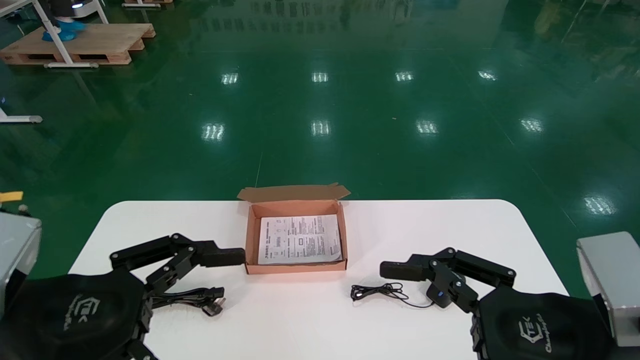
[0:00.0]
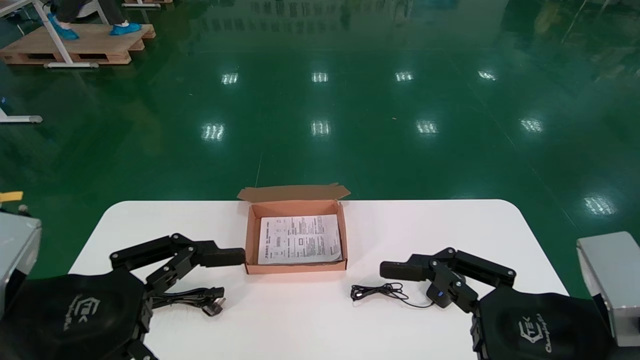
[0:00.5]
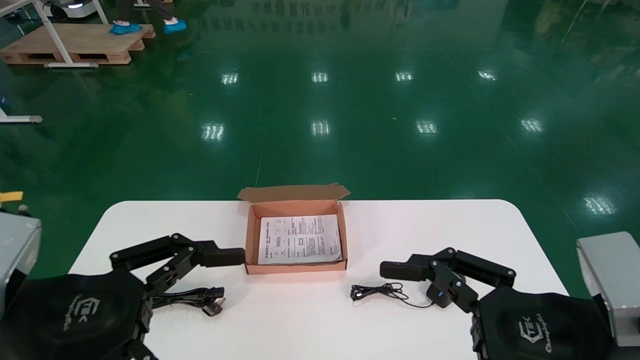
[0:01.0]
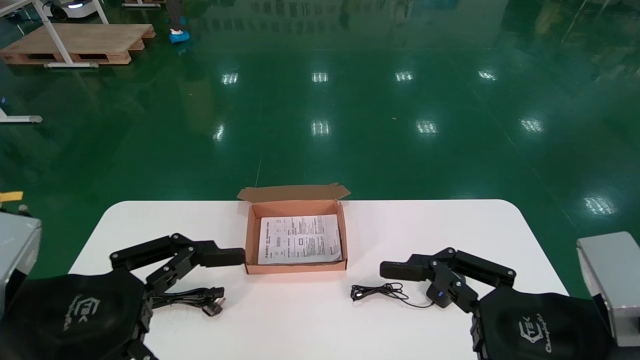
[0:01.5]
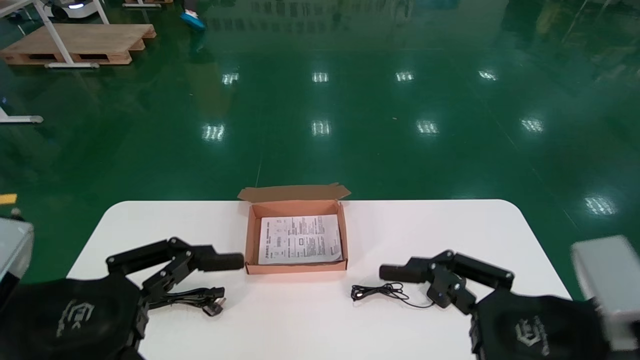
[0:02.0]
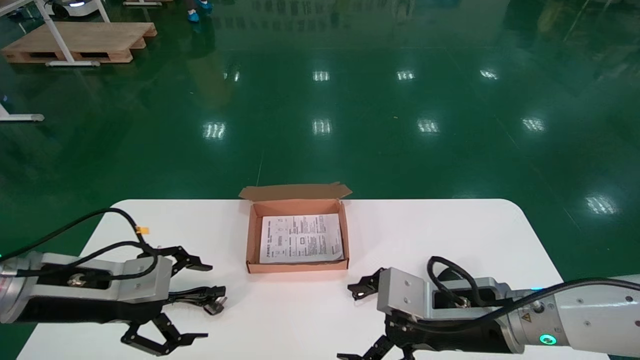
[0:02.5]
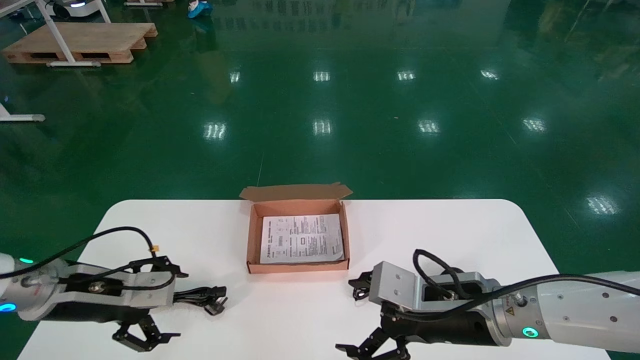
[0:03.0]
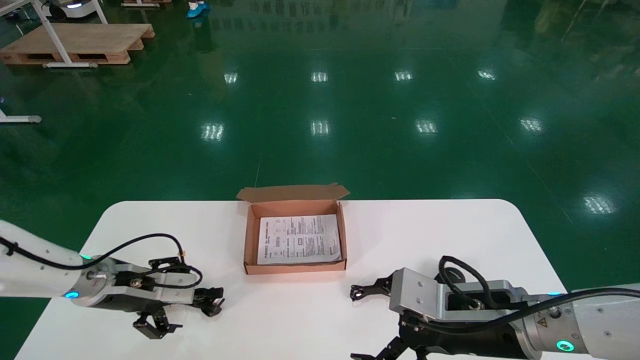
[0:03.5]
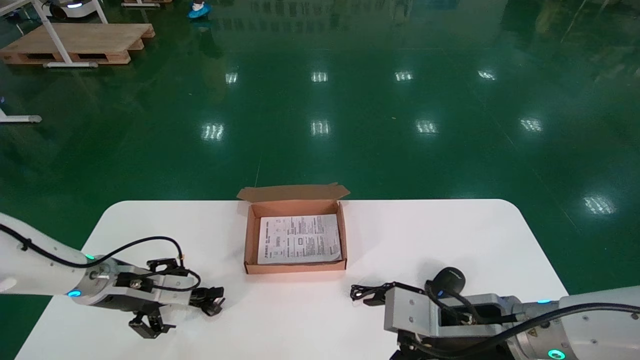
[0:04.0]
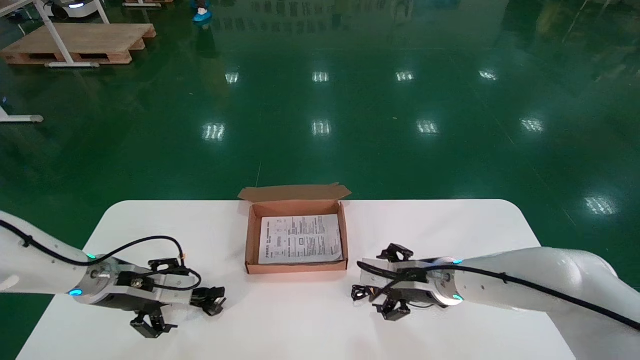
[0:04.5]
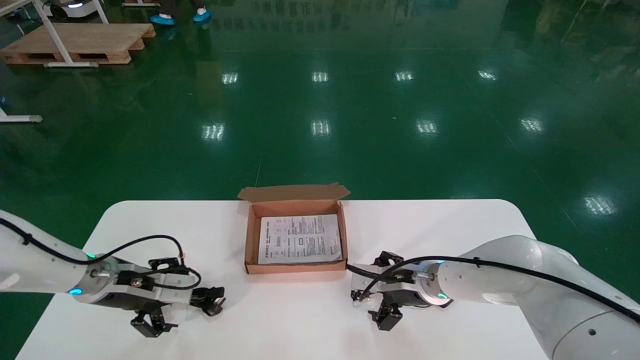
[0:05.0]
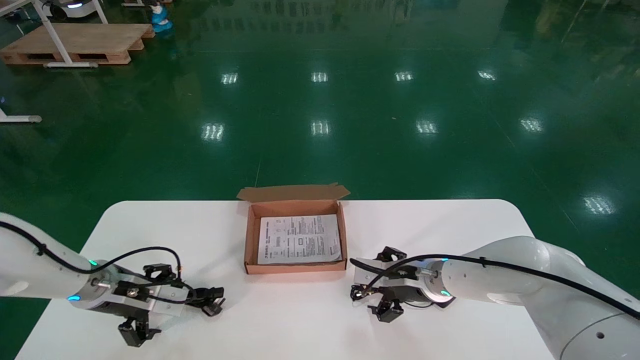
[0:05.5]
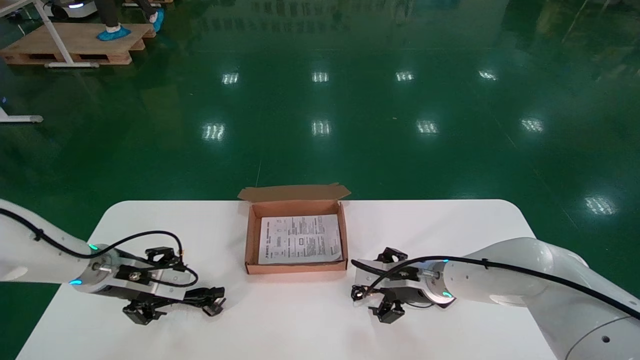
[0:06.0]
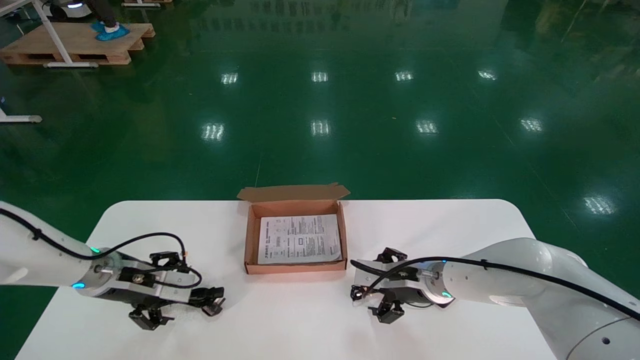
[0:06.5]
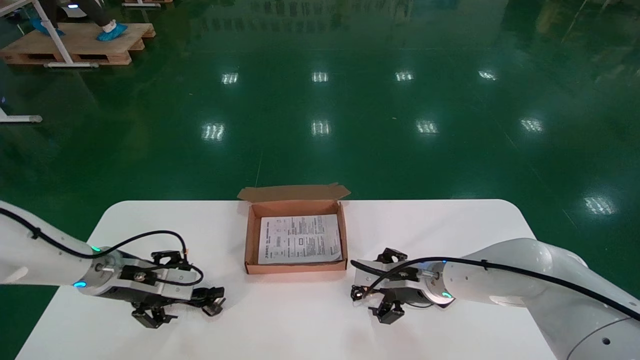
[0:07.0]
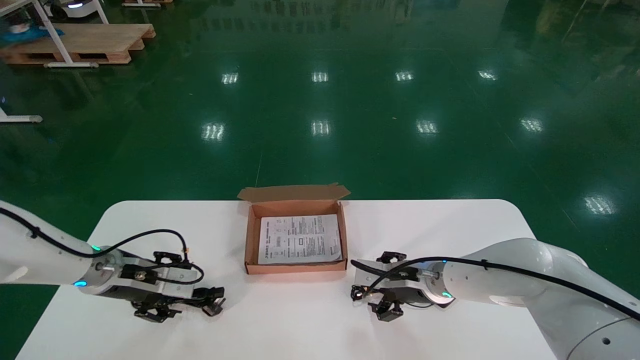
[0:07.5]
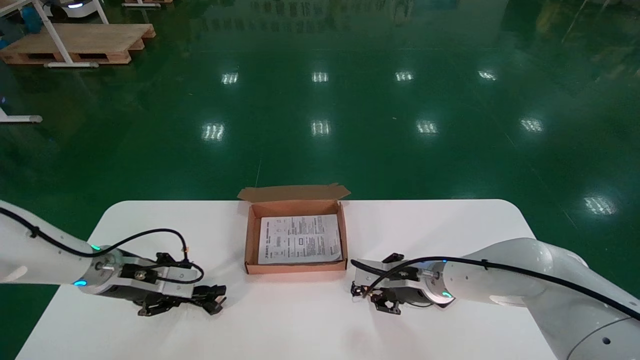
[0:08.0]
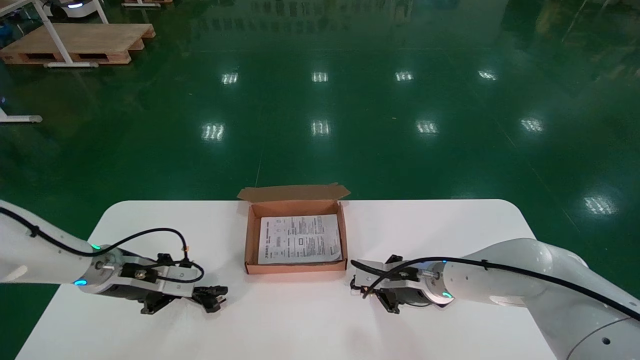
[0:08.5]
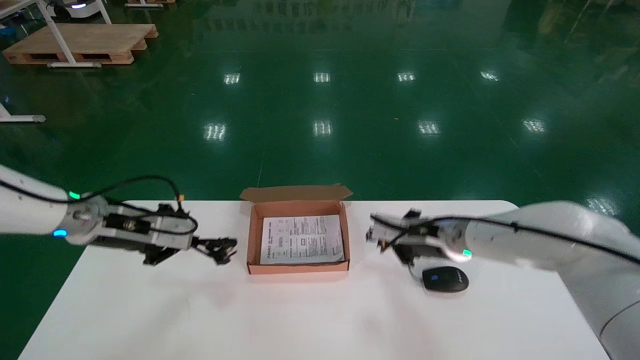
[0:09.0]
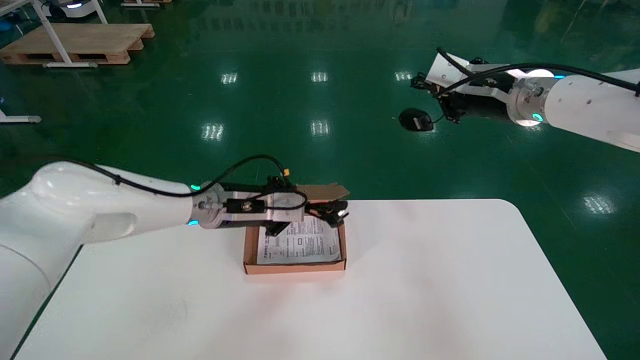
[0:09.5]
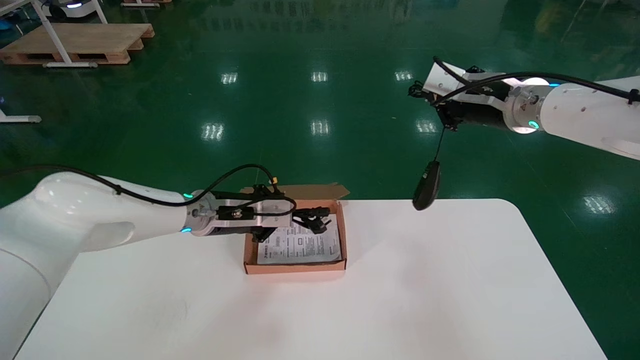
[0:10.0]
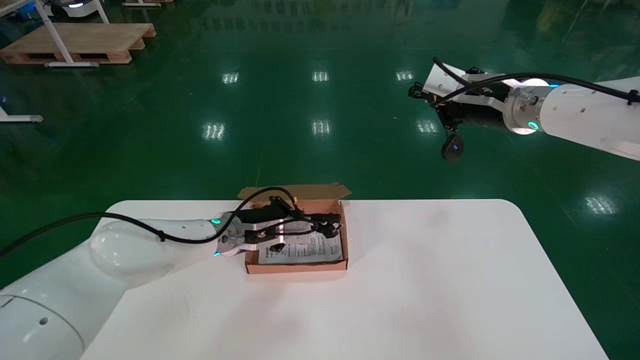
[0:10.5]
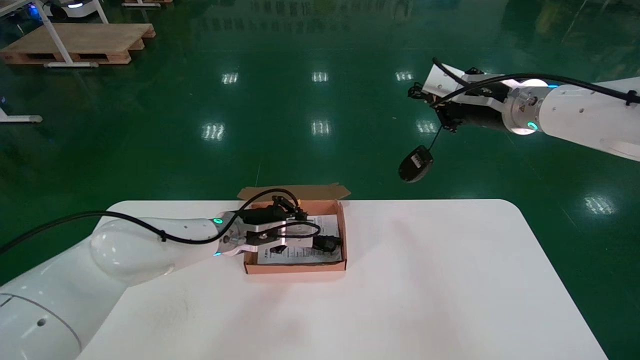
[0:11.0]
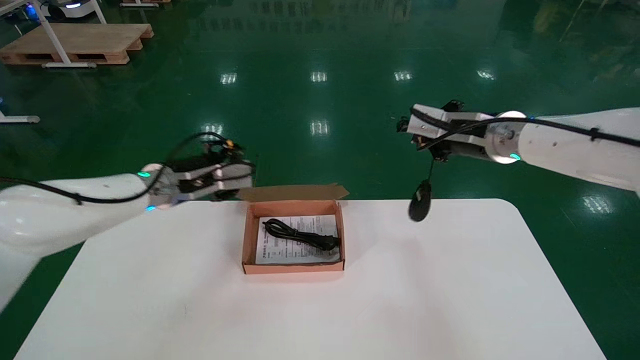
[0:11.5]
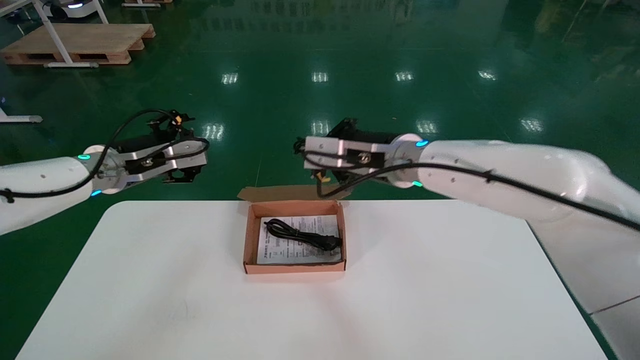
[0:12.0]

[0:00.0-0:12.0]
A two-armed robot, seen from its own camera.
Step, 0:02.5 to 0:08.0: Simultaneously pick up the mouse and power cord from the accessory packaging area.
0:00.0 to 0:02.0: There are only small adjustments of the grippers.
0:02.0 to 0:04.0: The left gripper shifts some 20 cm forward. The right gripper moves forward and downward, roughly 15 cm.
0:04.0 to 0:06.0: The right gripper goes approximately 15 cm forward.
0:06.0 to 0:08.0: The left gripper closes. Meanwhile the right gripper closes up.
0:08.0 to 0:10.0: The right gripper goes approximately 30 cm upward, and closes its fingers. Meanwhile the left gripper goes some 20 cm to the right and upward, and closes its fingers.
0:10.0 to 0:12.0: The right gripper travels to the left and downward by approximately 20 cm; the left gripper travels to the left and upward by approximately 15 cm, and opens.

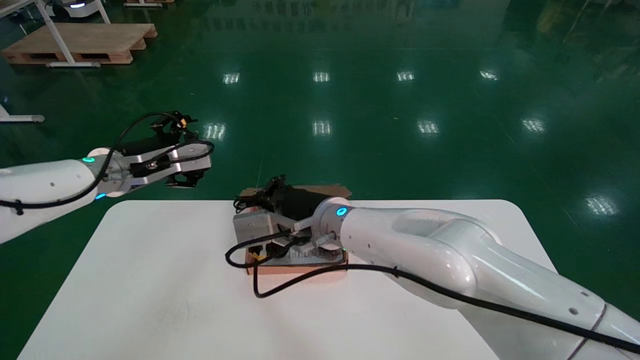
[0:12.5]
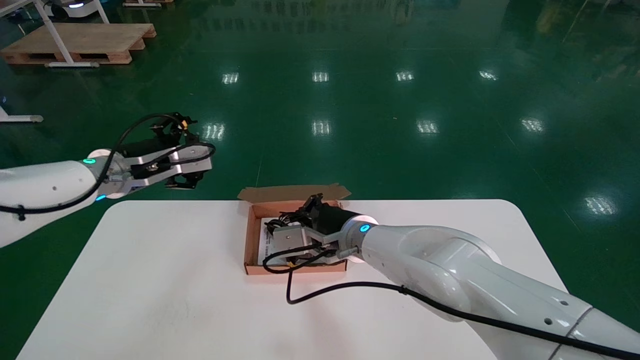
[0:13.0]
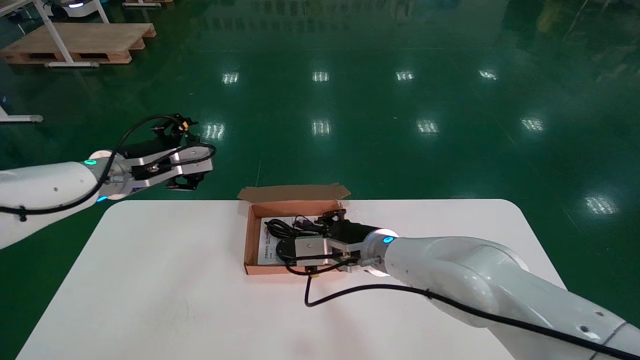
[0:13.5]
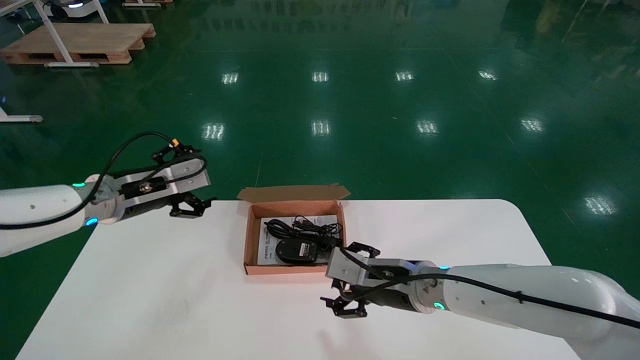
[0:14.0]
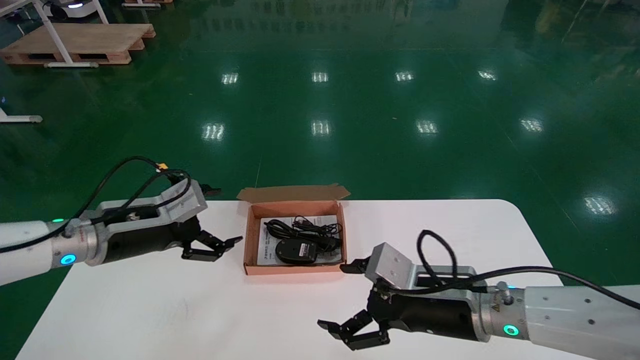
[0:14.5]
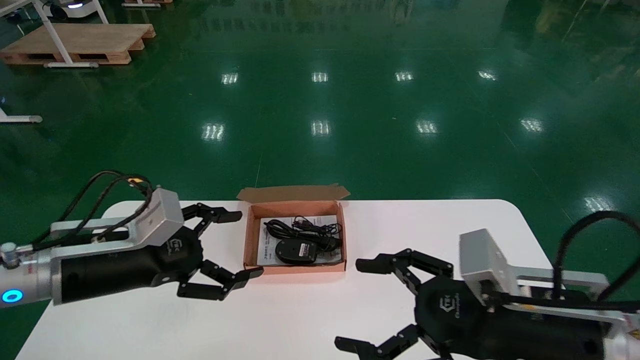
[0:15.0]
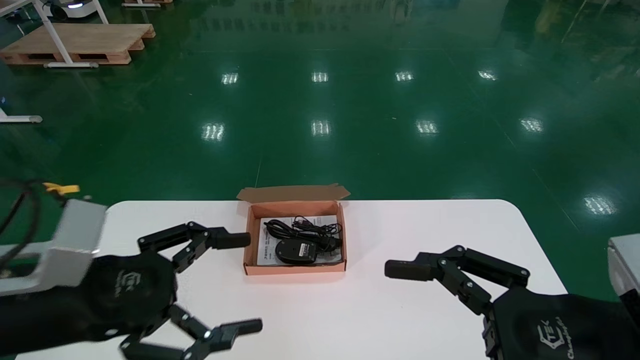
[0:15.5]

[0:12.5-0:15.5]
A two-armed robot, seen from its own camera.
0:12.5 to 0:14.0: The right gripper shifts roughly 15 cm to the right and downward, and opens.
0:14.0 to 0:15.5: The left gripper shifts approximately 20 cm backward. Meanwhile the right gripper moves backward and to the right, approximately 25 cm.
